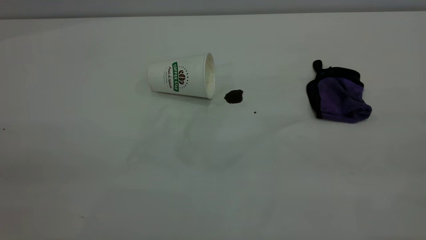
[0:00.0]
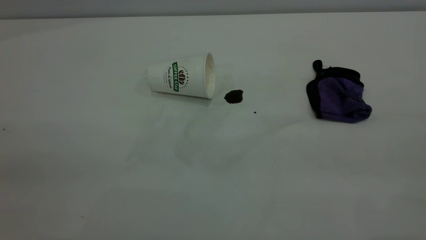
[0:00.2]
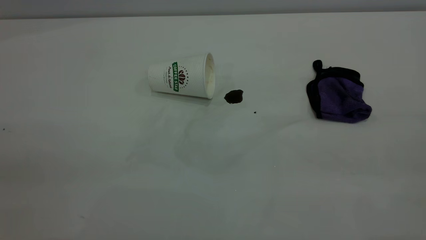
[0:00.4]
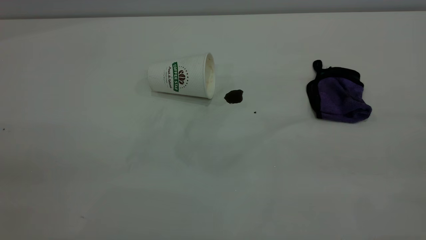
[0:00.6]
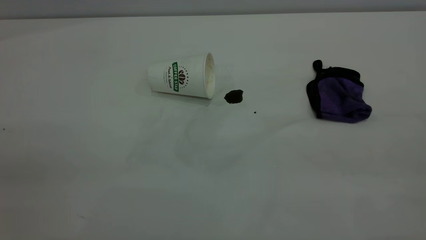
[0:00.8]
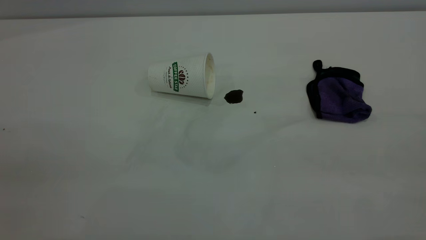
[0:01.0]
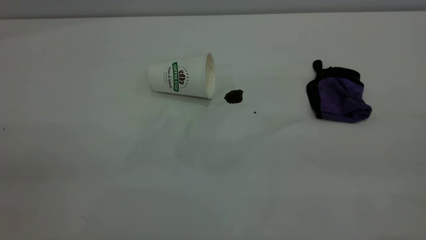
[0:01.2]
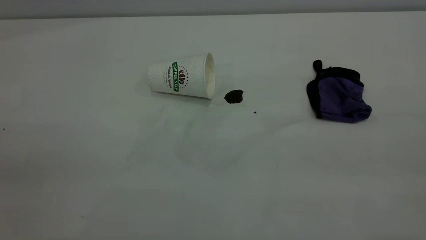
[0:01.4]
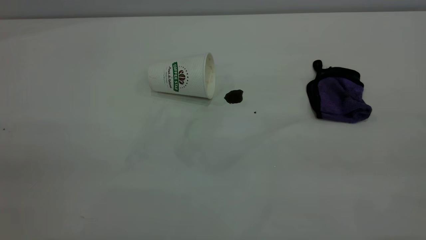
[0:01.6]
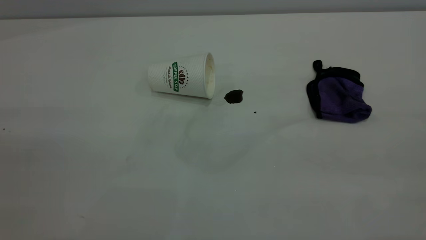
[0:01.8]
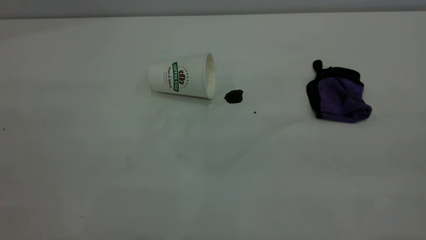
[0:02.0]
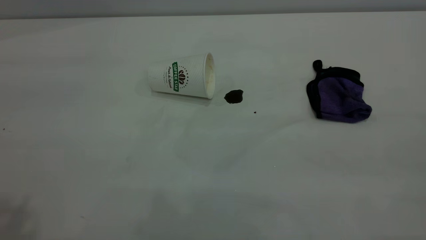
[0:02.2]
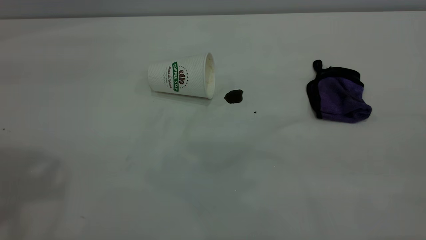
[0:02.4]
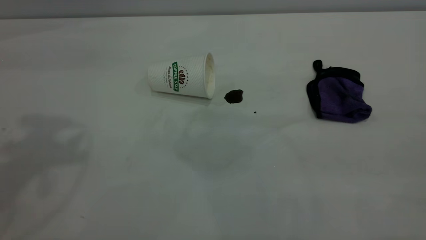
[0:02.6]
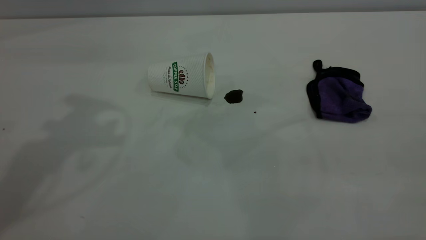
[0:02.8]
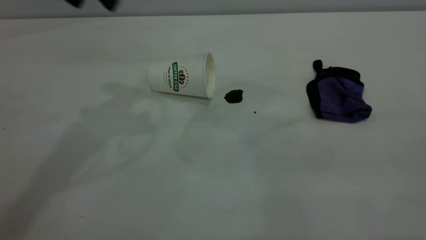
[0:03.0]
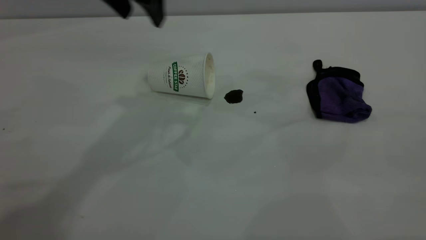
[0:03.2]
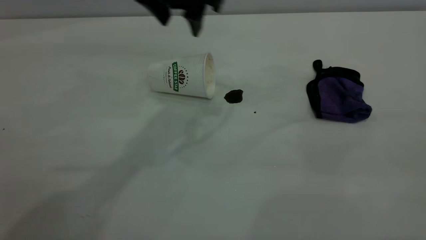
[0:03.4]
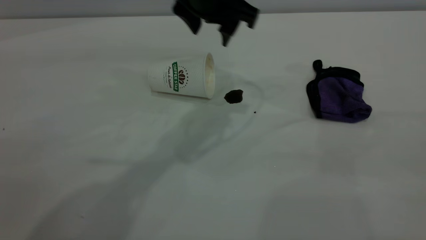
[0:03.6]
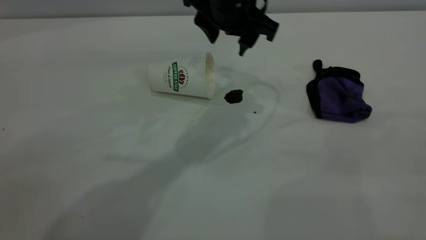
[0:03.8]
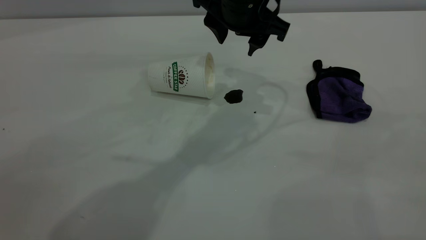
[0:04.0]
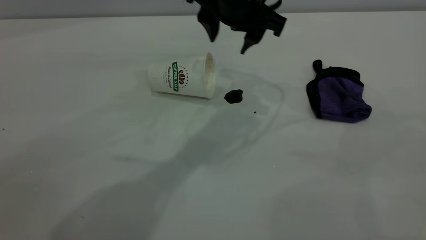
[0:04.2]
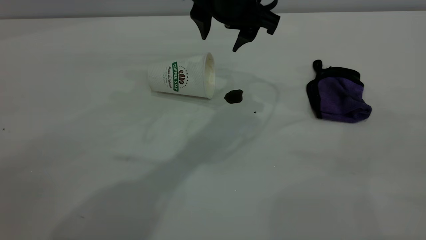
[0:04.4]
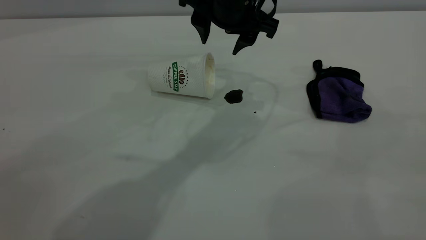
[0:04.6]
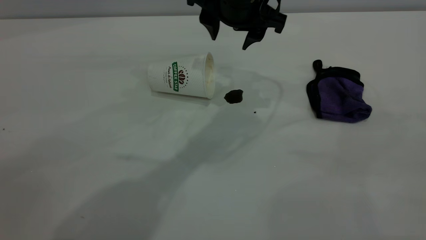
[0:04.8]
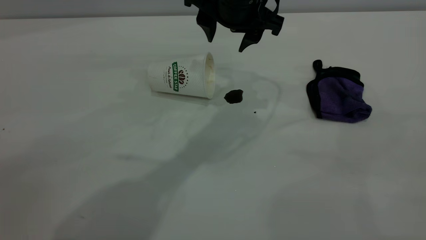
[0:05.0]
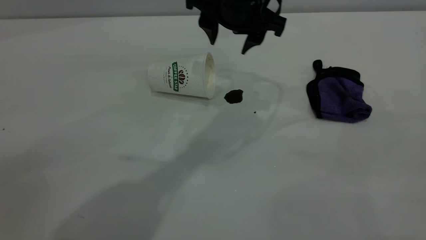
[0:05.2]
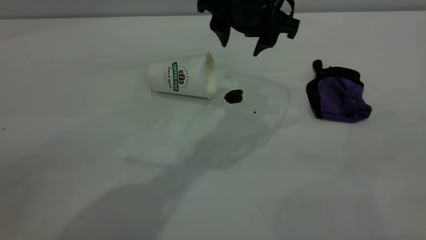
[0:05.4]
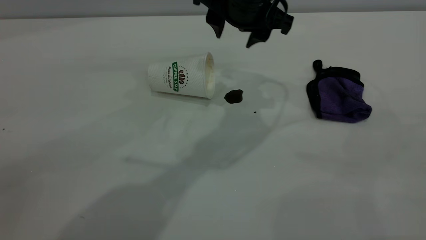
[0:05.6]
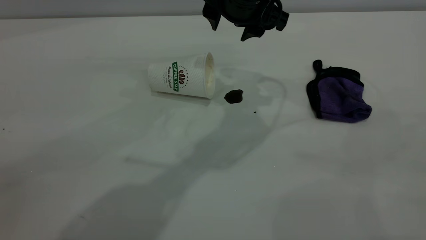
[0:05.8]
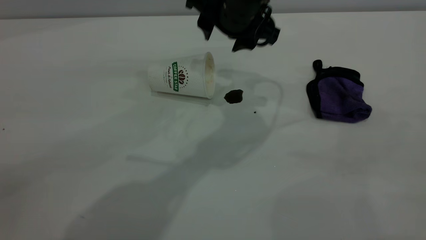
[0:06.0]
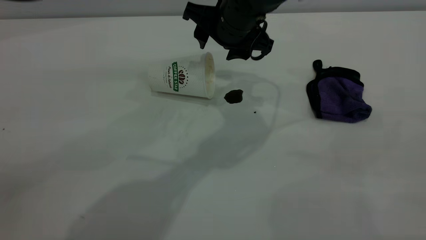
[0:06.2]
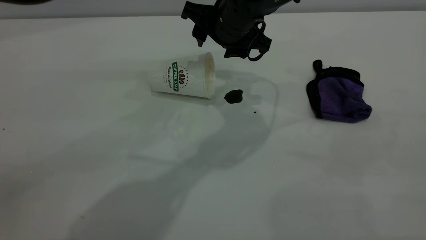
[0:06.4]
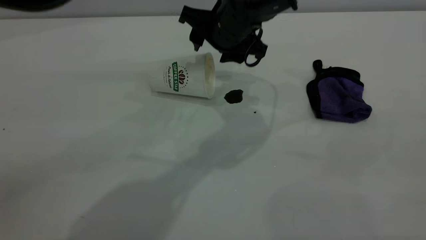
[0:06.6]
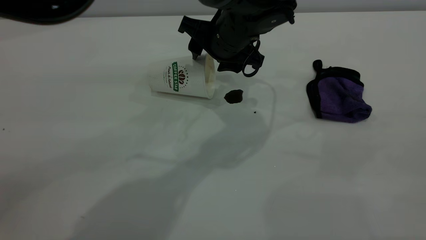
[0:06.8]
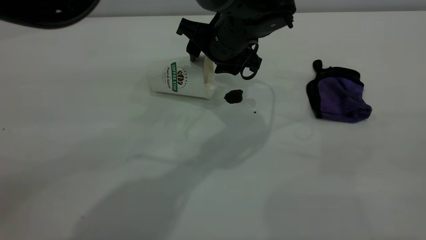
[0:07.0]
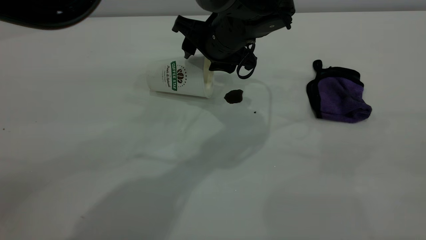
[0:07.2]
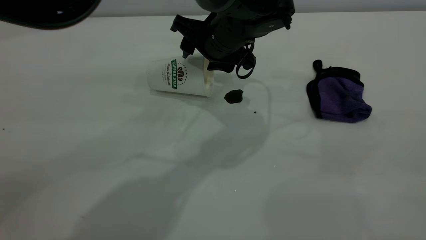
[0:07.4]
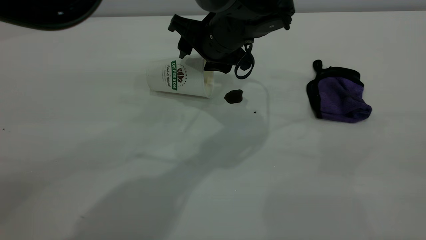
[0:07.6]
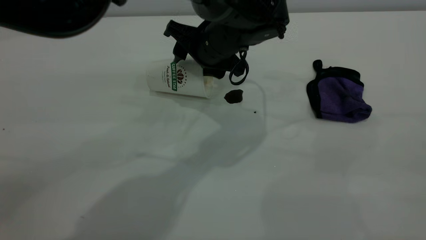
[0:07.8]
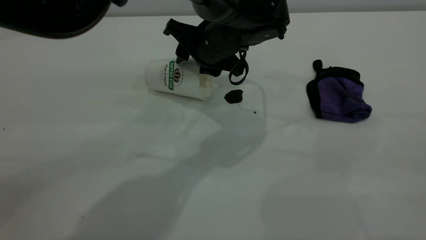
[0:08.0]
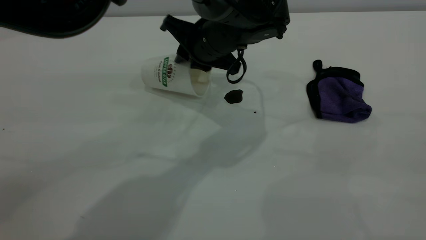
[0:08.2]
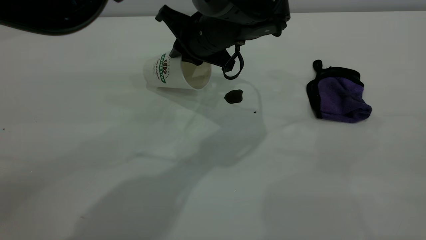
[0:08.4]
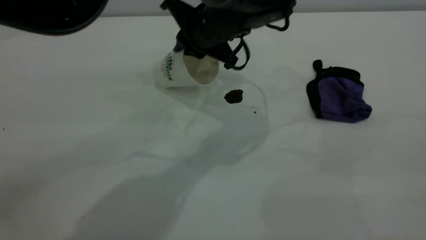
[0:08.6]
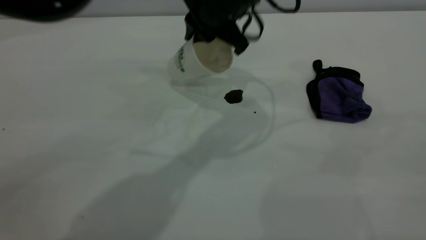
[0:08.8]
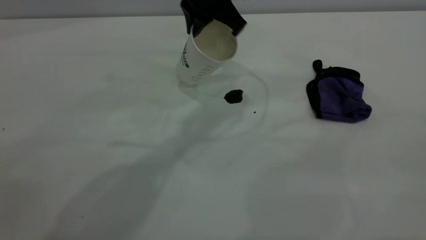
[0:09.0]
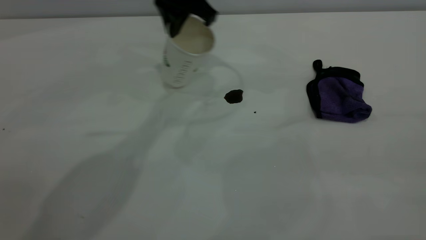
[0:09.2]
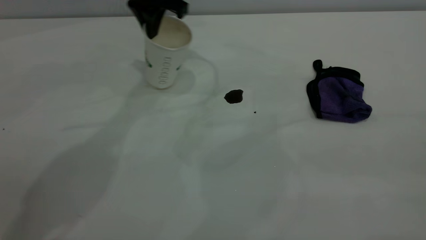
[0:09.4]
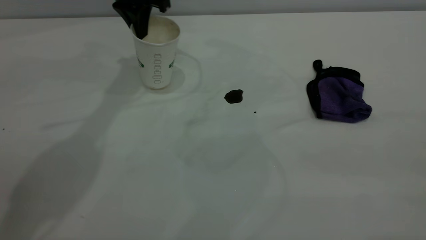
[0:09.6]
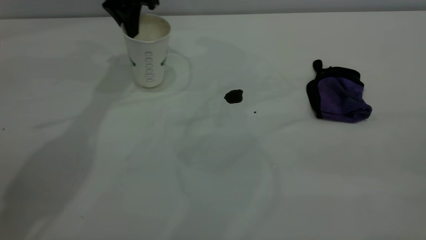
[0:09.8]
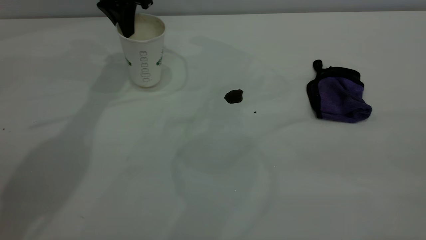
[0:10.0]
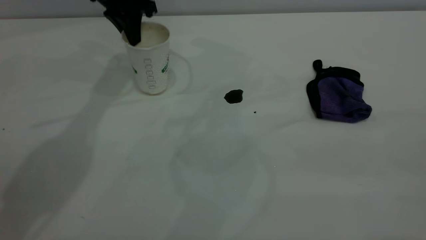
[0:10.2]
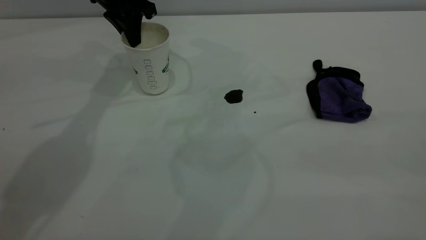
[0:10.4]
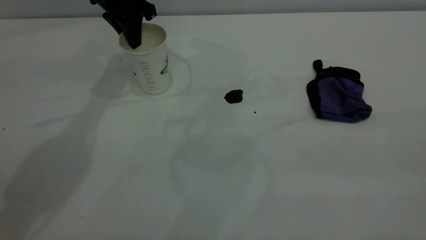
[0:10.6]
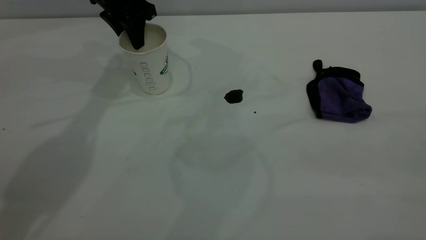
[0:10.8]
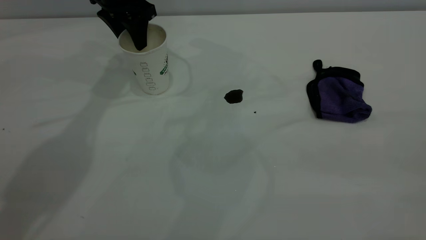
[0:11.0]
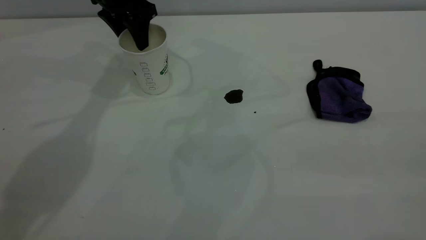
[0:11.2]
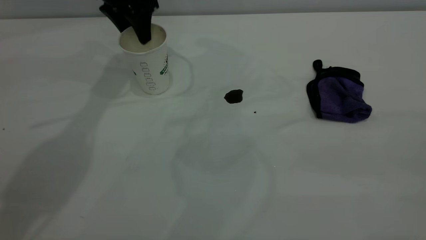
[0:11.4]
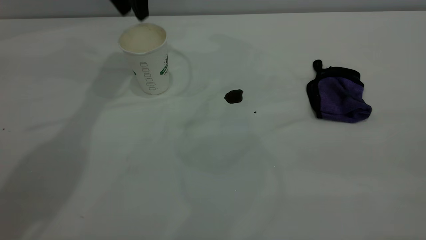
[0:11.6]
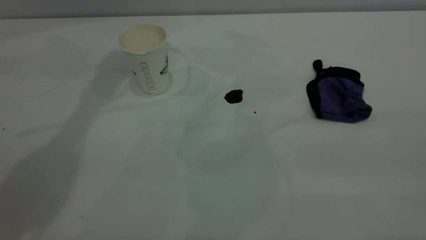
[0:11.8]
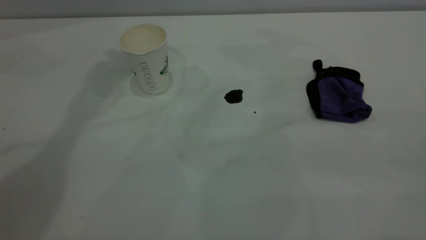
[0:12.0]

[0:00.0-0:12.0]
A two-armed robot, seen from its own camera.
Task of the whole recording: the left gripper pick up the fallen cup and place it upright, the right gripper grasp the purple rag and wipe the coffee stain on the table, the right gripper put the purple rag back in its original position.
Step, 0:00.0 to 0:11.4: Stand the paper cup upright.
0:00.0 to 0:01.6: Both grippers stay about where they are.
0:03.0 to 0:04.4: The left gripper heads to the right and downward, covering about 20 cm.
0:04.4 to 0:06.0: The grippers move only a little.
0:06.0 to 0:07.6: The left gripper ends up approximately 5 cm from where it was.
0:07.6 to 0:09.0: The left gripper travels upward by approximately 10 cm, and closes.
0:09.0 to 0:10.4: The left gripper shifts some 20 cm to the left and forward.
0:10.4 to 0:12.0: The left gripper travels upward by about 20 cm, and opens its fingers.

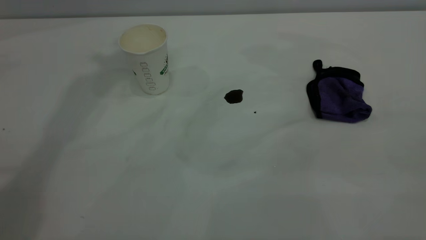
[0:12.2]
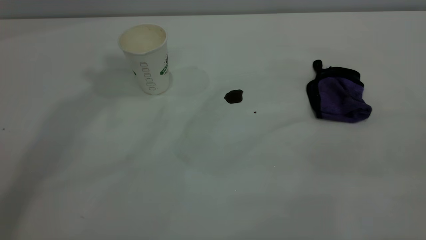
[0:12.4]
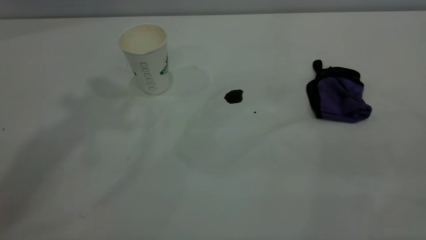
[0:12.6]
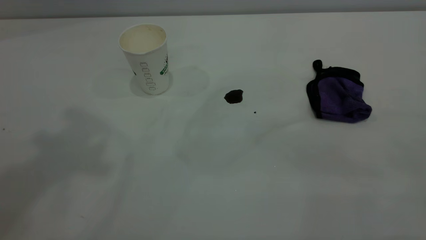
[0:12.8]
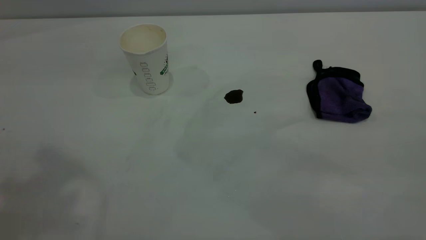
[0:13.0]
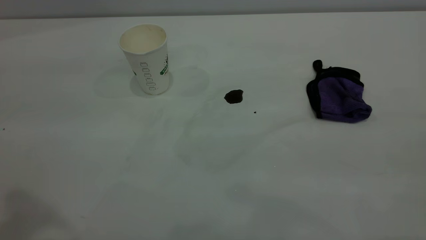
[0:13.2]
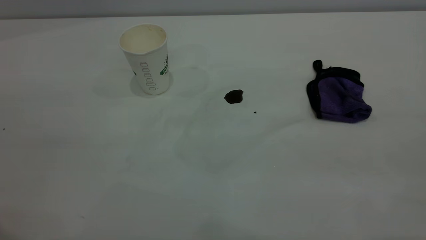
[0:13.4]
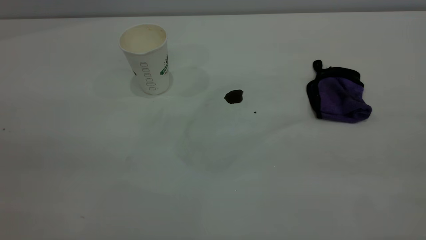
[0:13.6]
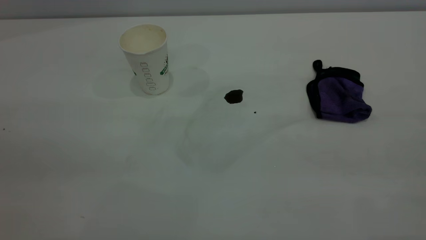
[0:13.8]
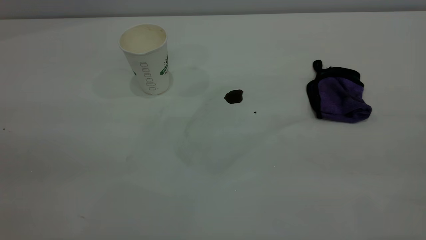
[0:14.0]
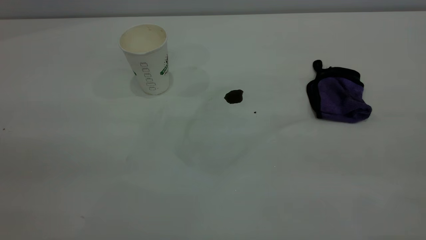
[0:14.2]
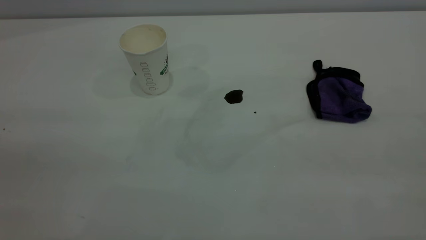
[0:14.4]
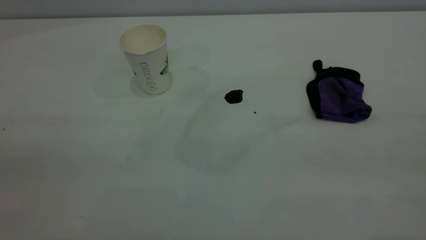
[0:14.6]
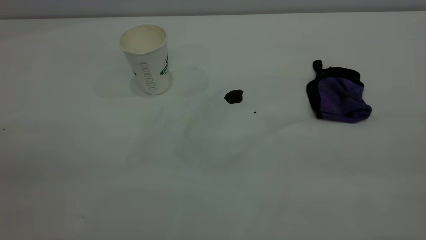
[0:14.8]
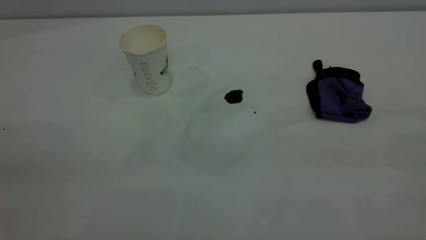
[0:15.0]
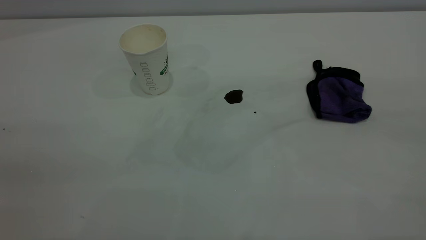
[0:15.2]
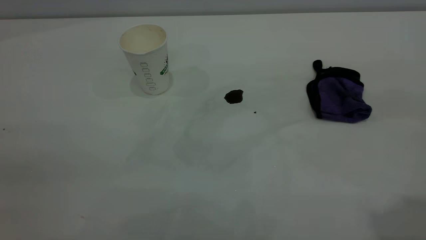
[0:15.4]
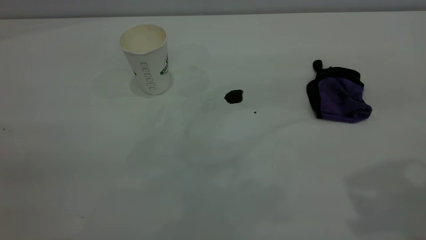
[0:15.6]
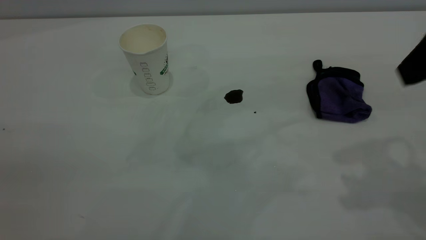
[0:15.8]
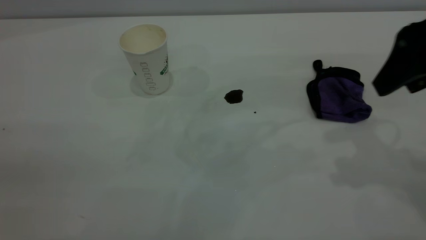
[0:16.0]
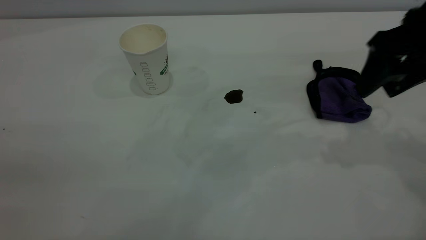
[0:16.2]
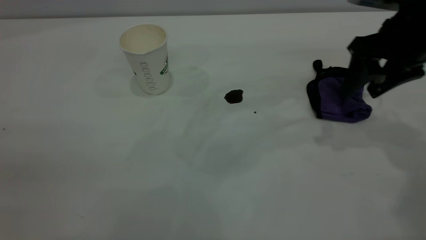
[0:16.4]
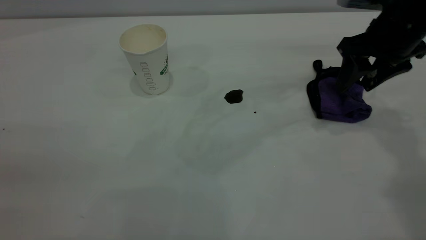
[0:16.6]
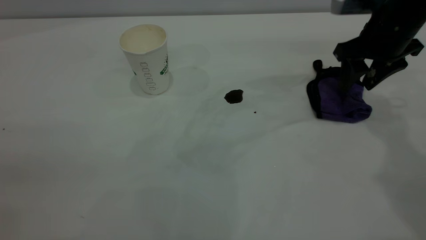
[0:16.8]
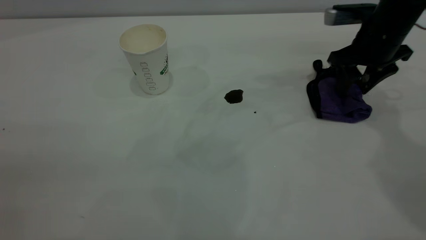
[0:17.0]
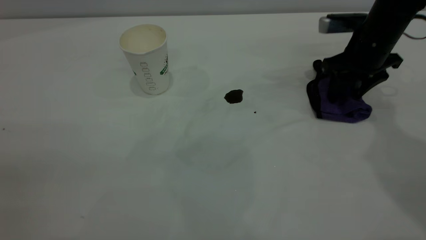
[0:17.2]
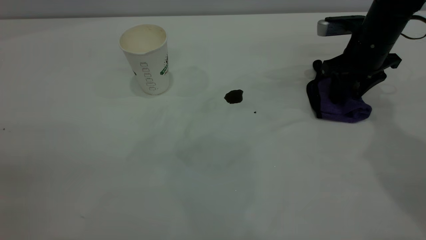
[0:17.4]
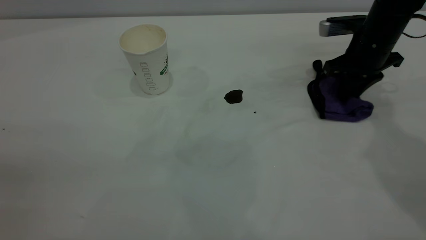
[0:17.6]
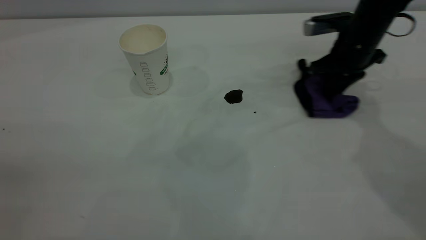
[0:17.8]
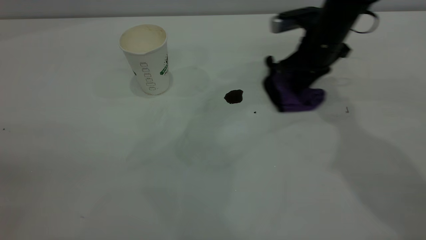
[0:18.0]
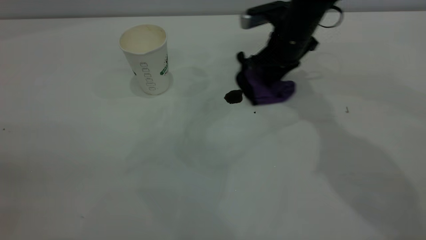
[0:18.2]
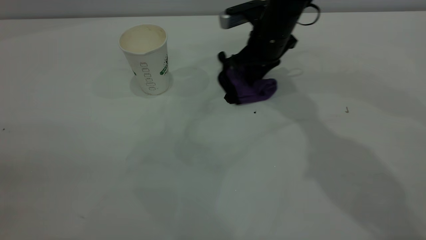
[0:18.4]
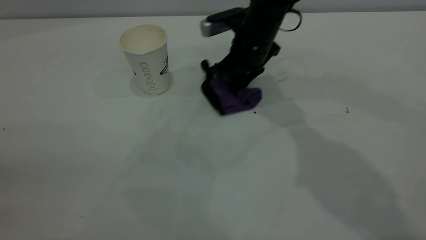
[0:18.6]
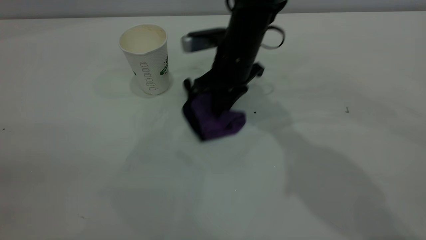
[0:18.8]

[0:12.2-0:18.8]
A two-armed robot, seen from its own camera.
Task of the whole recording: the left gripper pick up the fallen cup and place it upright, the right gripper grasp the purple rag and wipe the coffee stain on the table, the right gripper put the purple rag back in its original position.
0:15.4 to 0:17.2: The right gripper travels forward and downward by roughly 40 cm.
0:17.2 to 0:18.8: The right gripper shifts about 25 cm to the left, and closes up.
